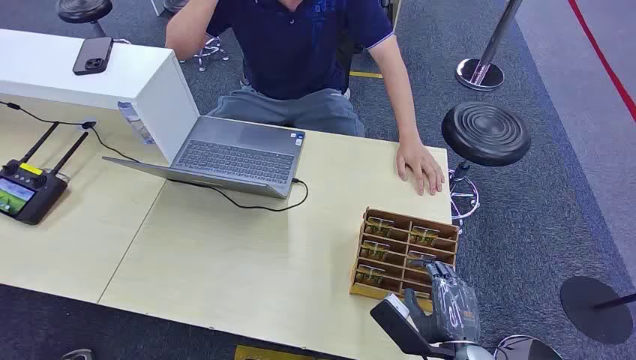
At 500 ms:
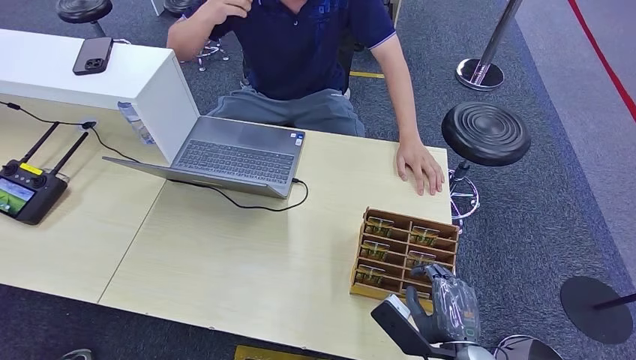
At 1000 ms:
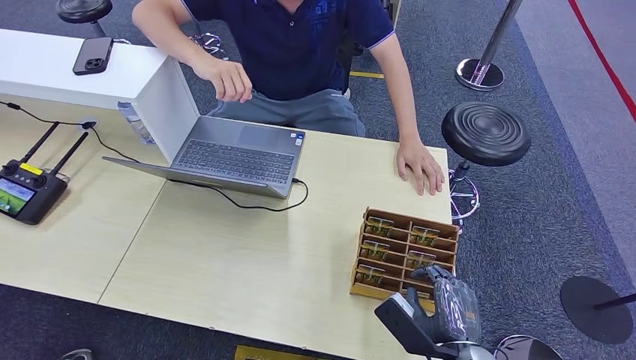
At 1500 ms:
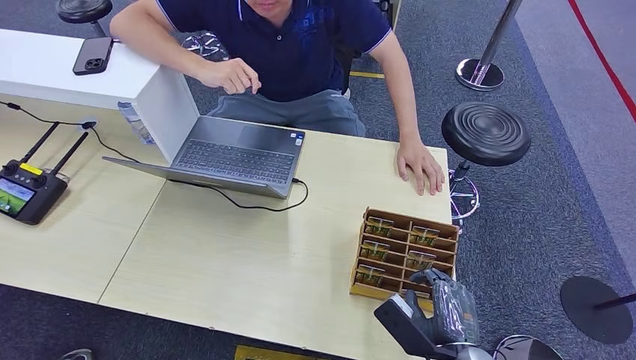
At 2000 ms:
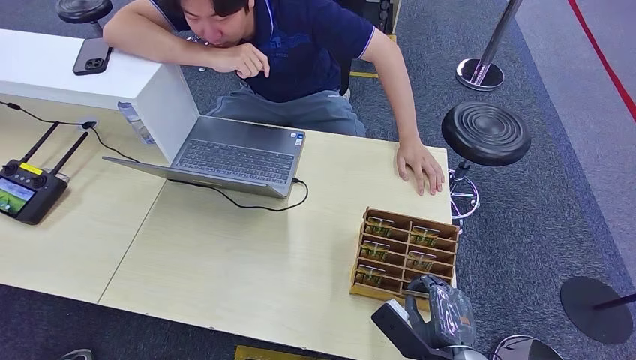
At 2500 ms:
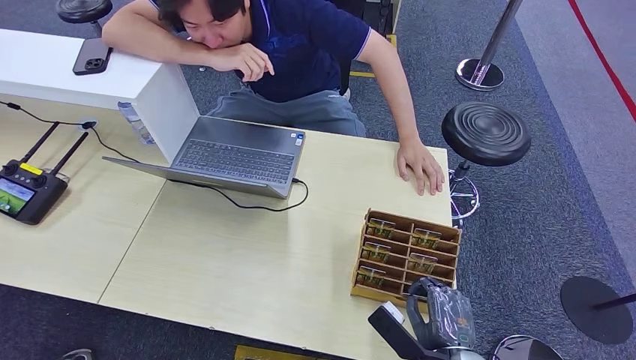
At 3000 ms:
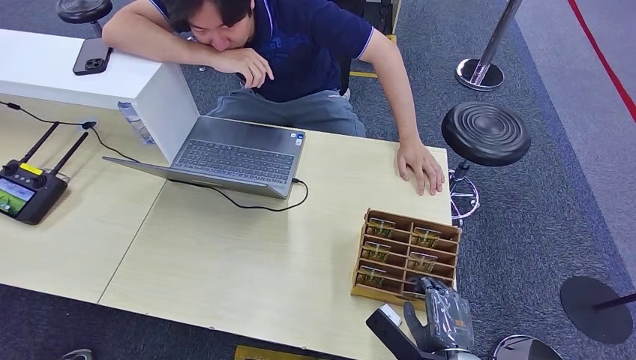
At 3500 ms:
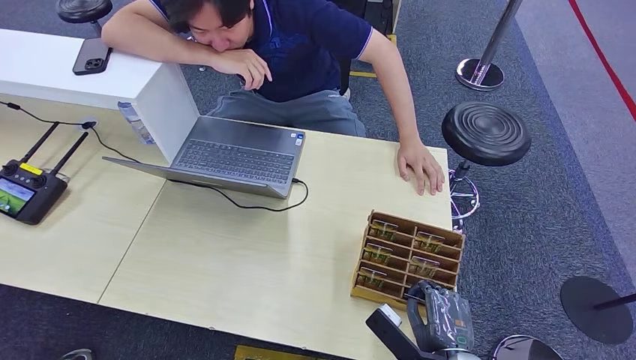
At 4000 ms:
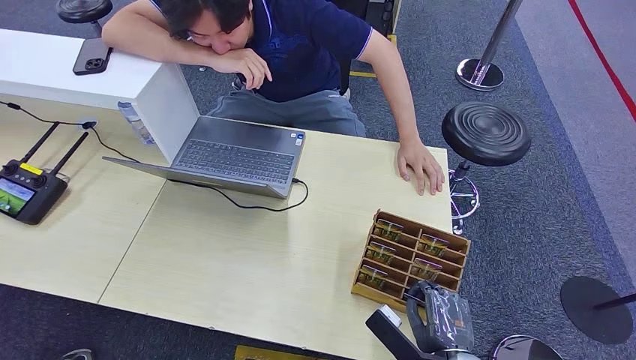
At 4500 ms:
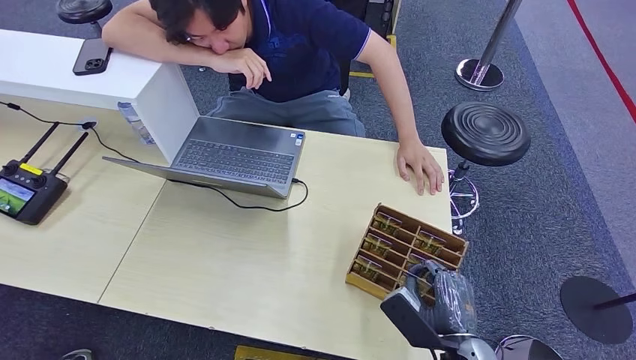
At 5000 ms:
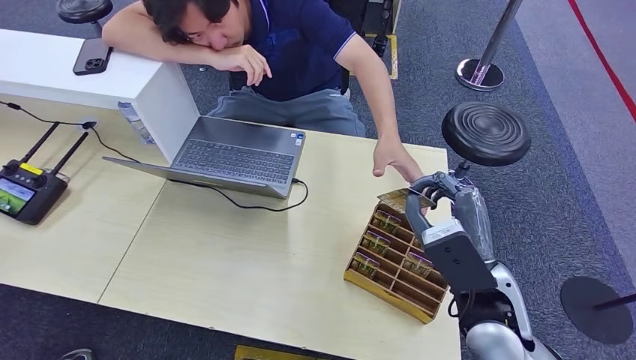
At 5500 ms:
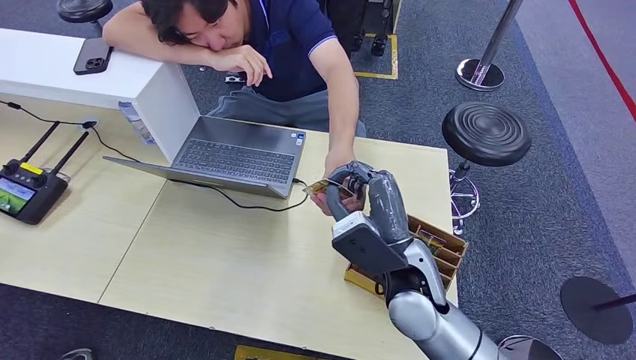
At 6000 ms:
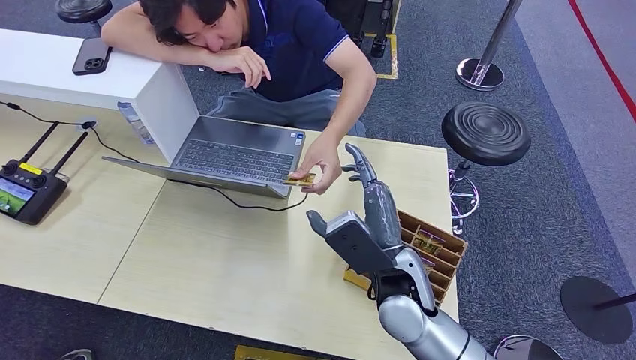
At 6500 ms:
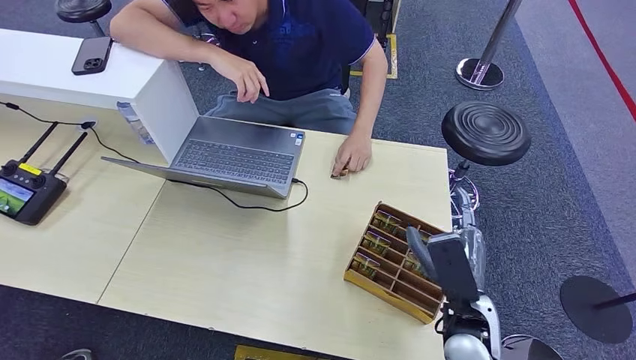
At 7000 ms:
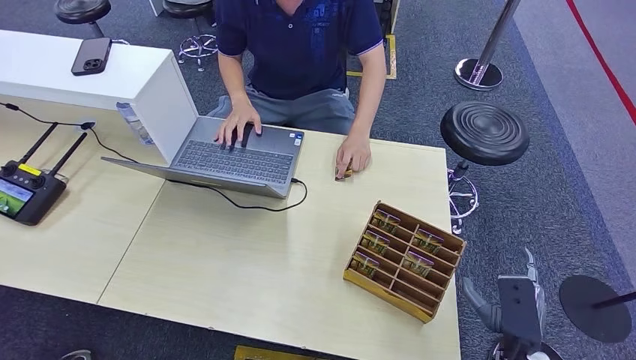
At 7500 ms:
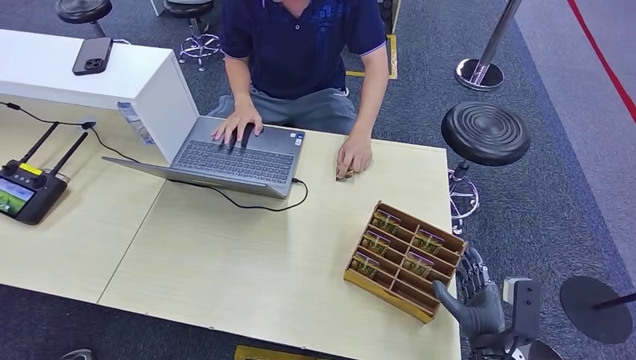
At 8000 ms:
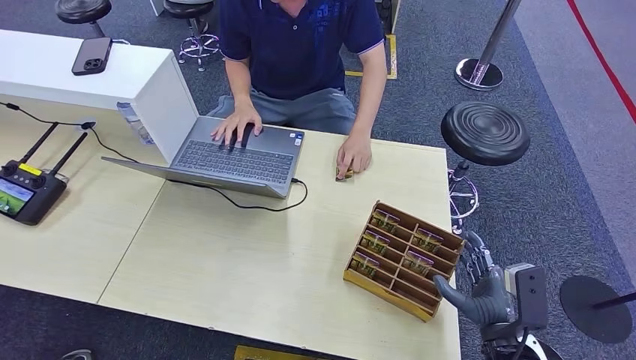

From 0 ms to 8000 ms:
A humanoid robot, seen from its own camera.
Task of the whole recording: Pick up the card and hand it over to the target person.
Step, from 0 ms to 5000 ms: Pick up the key card from the card box.
Step, from 5500 ms to 8000 ms: Hand the key card to the target.
From 2000 ms to 4000 ms: The hands make only small movements.
From 4000 ms to 6000 ms: The right hand moves upward, forward and to the left, roughly 20 cm.
From 6000 ms to 8000 ms: The right hand heads to the right and backward, covering some 15 cm.
